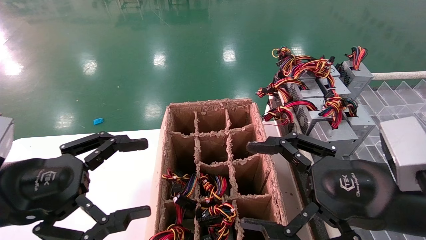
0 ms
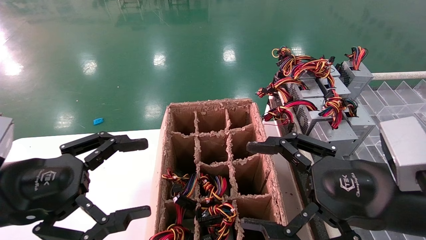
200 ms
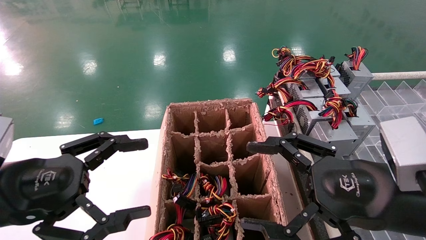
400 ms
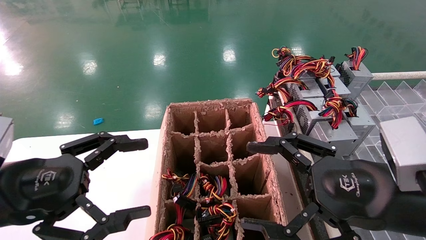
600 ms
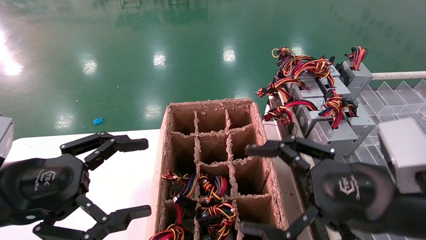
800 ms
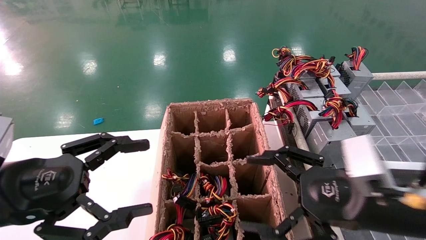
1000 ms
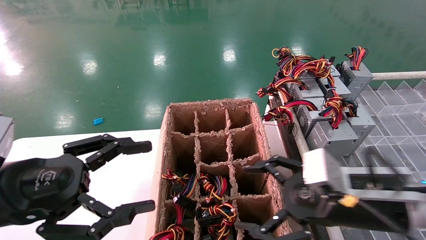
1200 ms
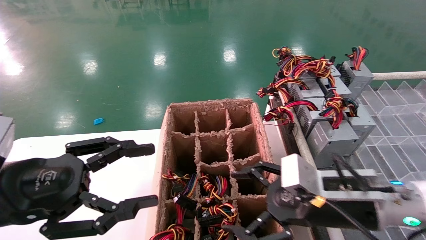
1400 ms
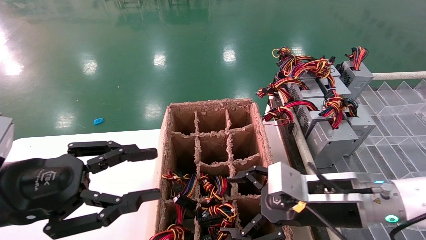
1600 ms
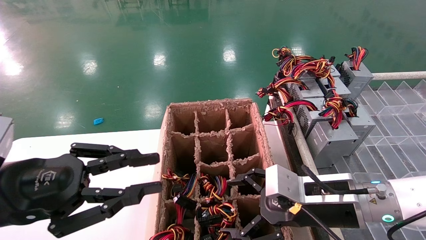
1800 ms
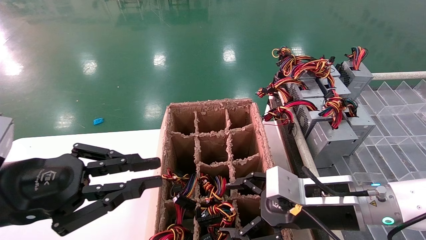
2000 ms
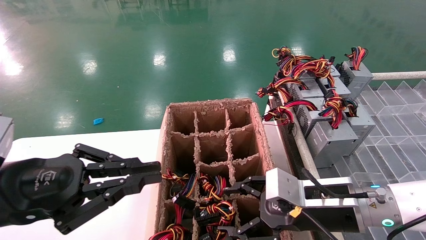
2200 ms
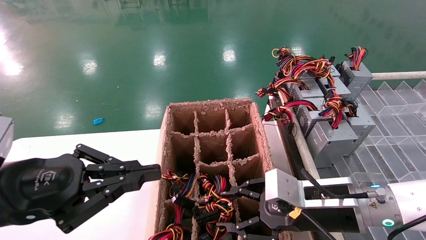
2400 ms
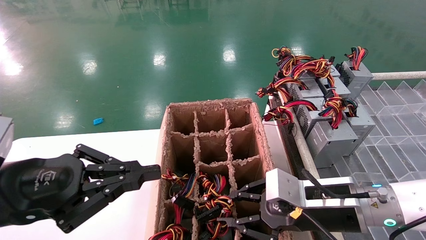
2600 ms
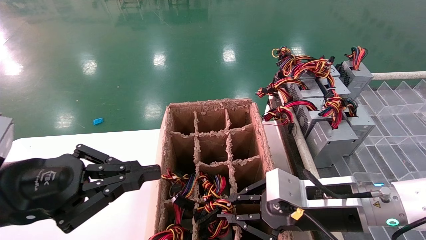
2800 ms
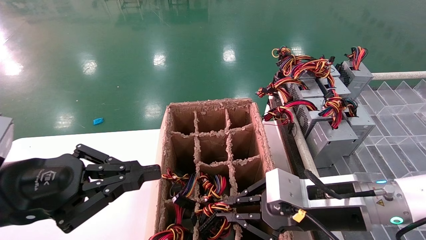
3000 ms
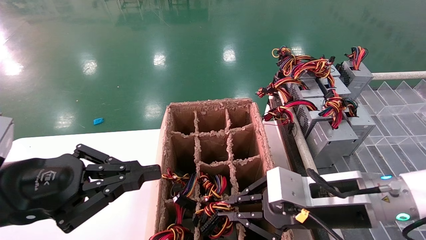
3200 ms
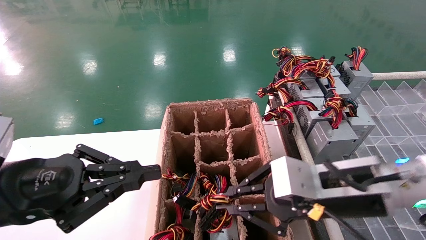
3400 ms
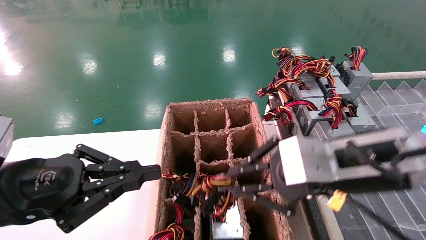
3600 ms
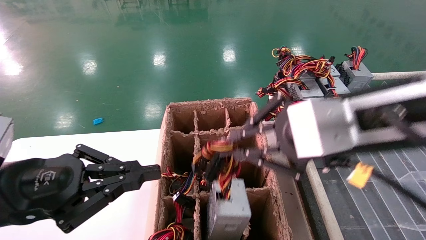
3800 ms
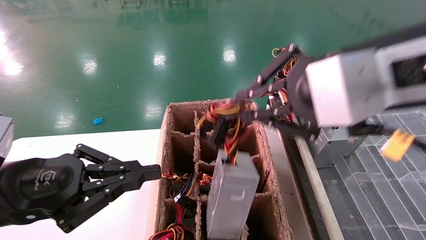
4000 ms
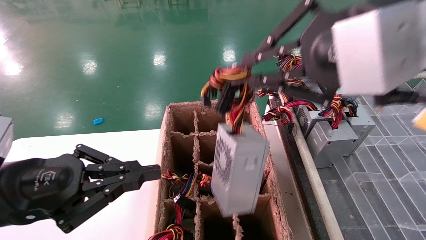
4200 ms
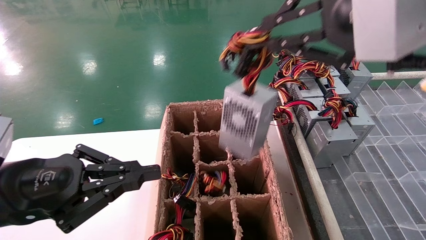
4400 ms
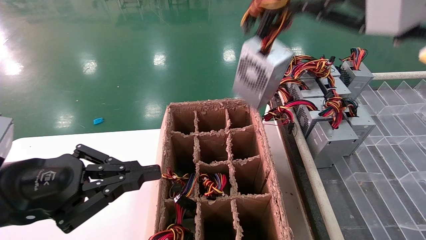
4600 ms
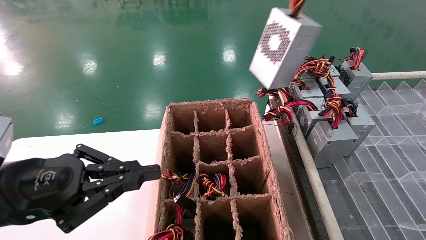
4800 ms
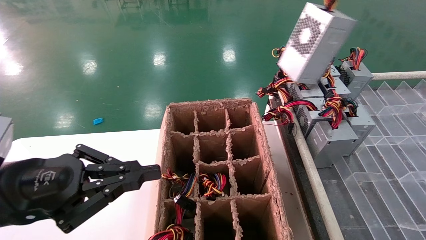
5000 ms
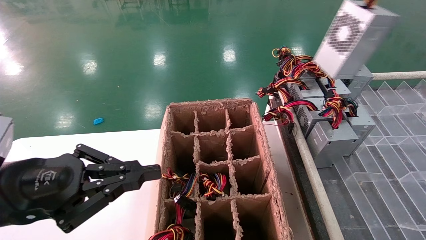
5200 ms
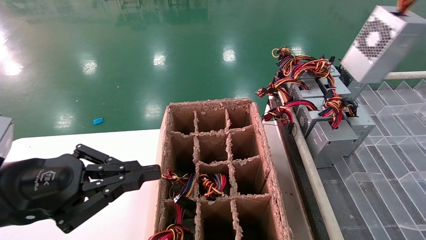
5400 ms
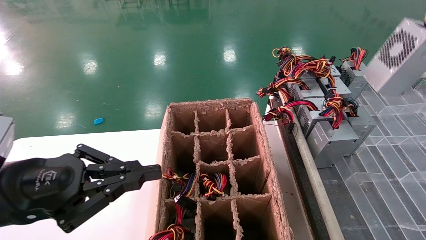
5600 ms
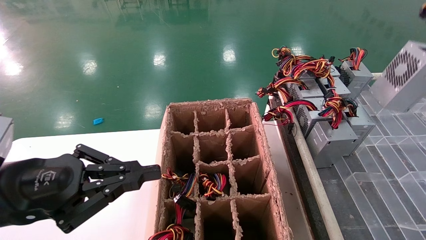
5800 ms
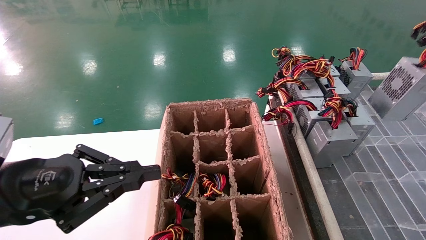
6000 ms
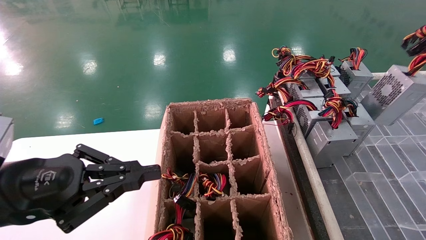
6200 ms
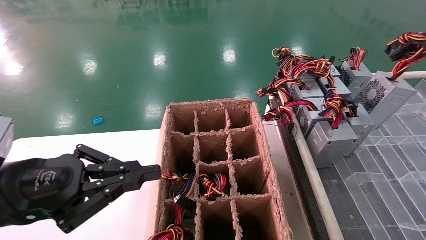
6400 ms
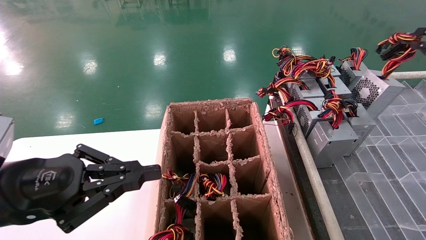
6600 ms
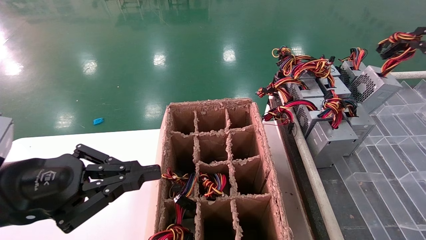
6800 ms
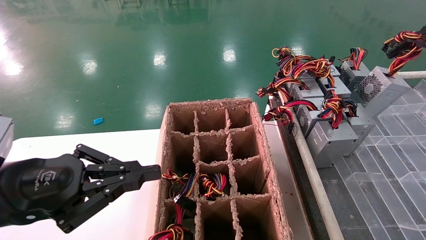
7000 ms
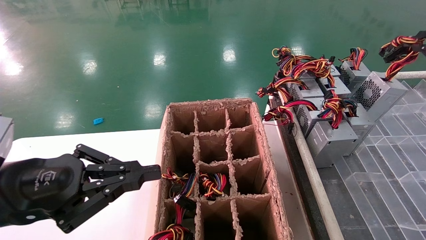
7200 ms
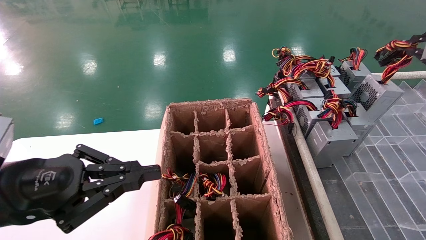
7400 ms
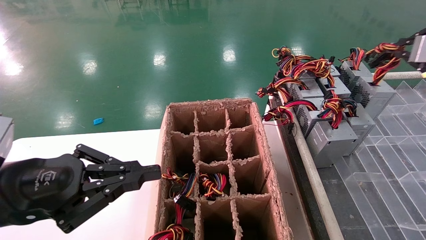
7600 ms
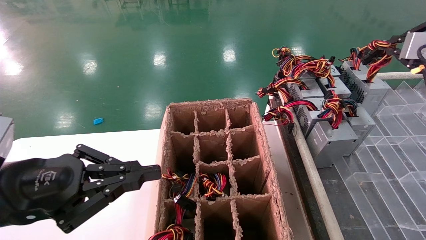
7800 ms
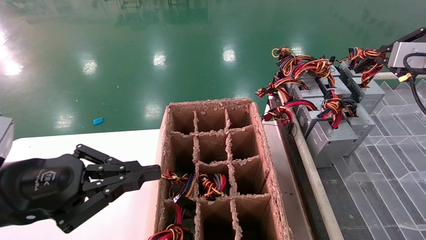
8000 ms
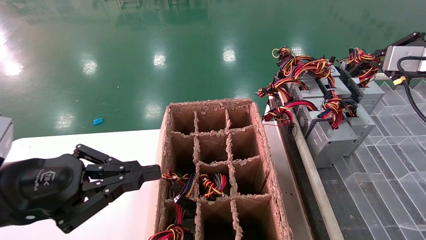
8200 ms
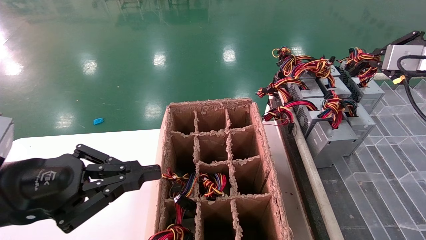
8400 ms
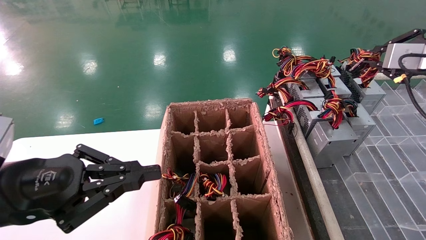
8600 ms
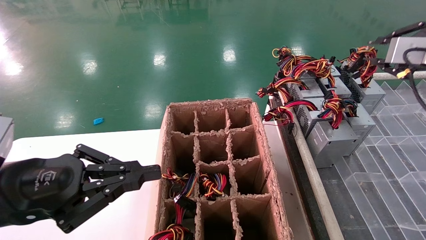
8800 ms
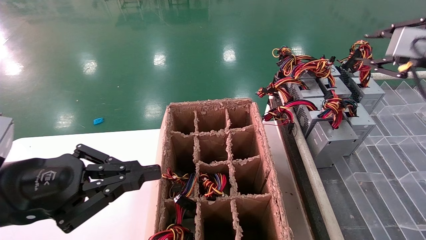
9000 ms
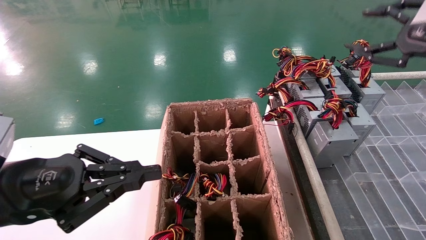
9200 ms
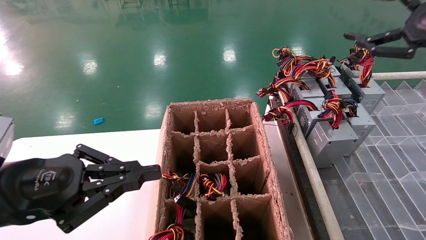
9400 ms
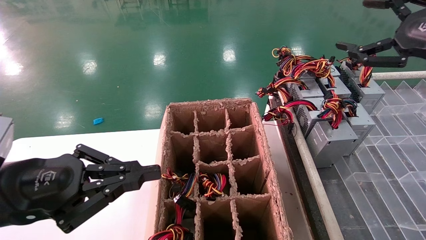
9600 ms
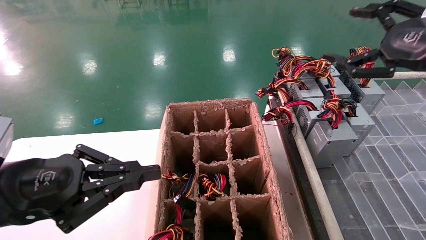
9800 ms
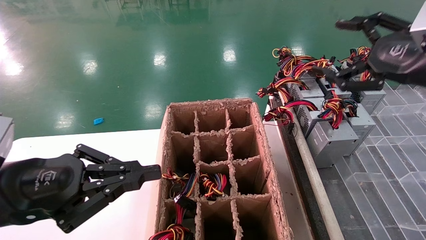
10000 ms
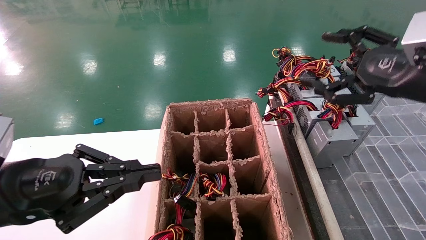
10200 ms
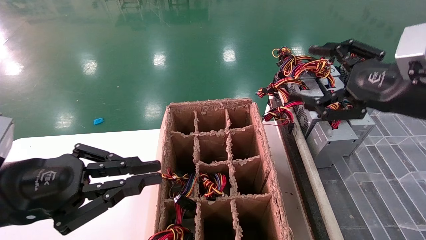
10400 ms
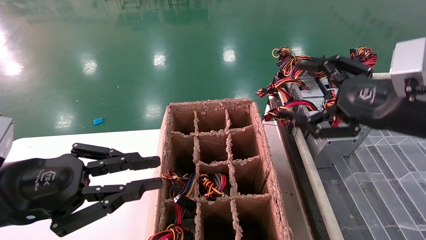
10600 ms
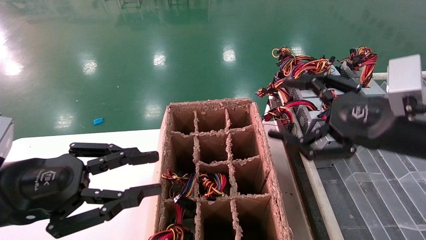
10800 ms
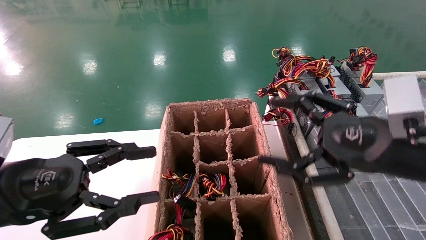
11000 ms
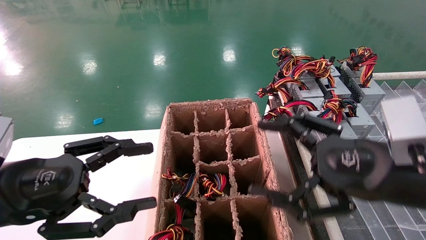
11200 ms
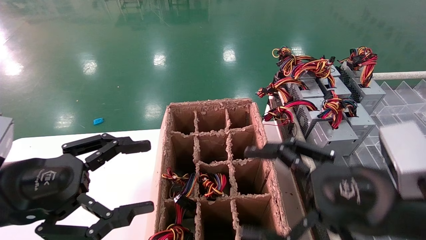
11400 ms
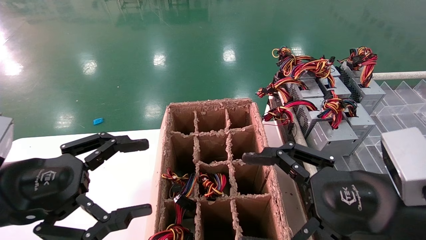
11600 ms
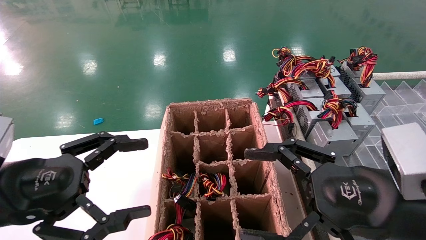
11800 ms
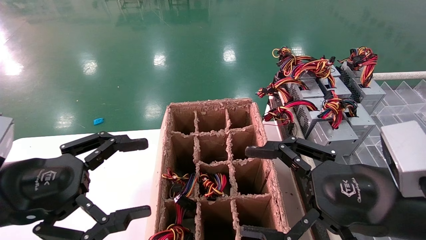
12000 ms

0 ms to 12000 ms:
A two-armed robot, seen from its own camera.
Step, 1400 ms to 3000 ms: Grab the main unit power supply from the containment box.
Step, 3200 ms to 9400 ms: Place the main unit power supply in the designated area.
0 ms to 1600 ms: The left gripper closes. Meanwhile the right gripper shifts roughly 10 cm forward and downward.
1600 ms to 3000 ms: The left gripper closes, while the right gripper closes up.
3000 ms to 4400 ms: The right gripper is displaced upward by roughly 30 cm.
4400 ms to 6000 ms: The right gripper heads to the right, covering roughly 25 cm.
6000 ms to 7600 ms: The right gripper goes some 10 cm forward.
7600 ms to 9000 ms: The grippers make only small movements.
9000 ms to 10400 ms: The right gripper travels to the left, downward and backward by approximately 15 cm, and opens up.
10400 ms to 12000 ms: The right gripper goes approximately 15 cm downward, to the left and backward. The left gripper opens its fingers.

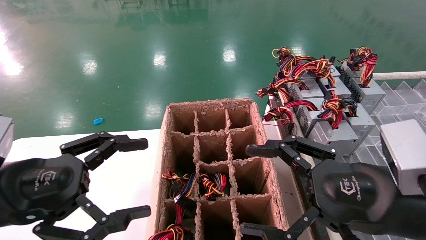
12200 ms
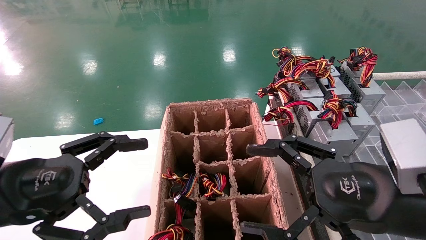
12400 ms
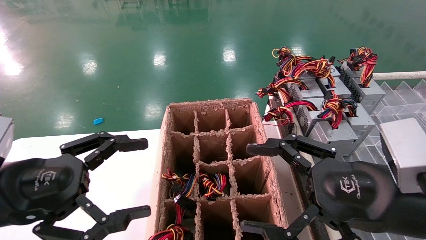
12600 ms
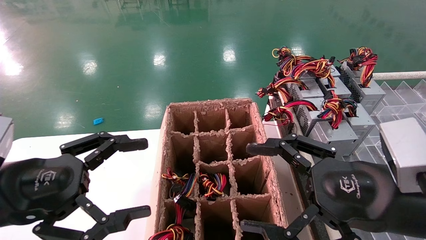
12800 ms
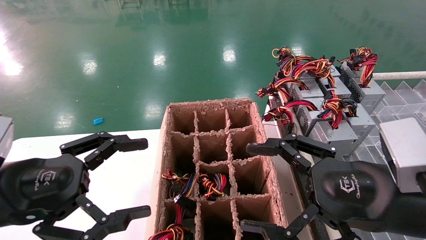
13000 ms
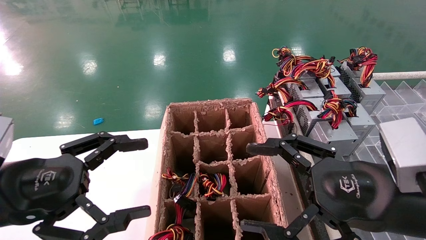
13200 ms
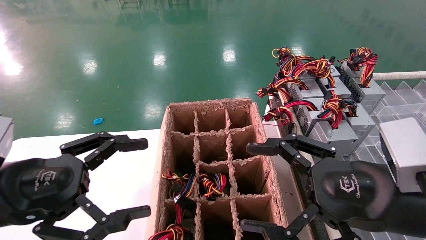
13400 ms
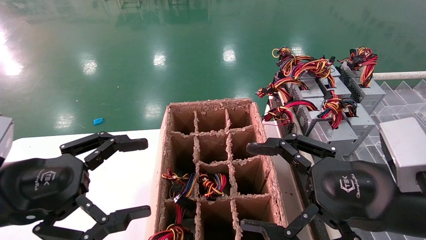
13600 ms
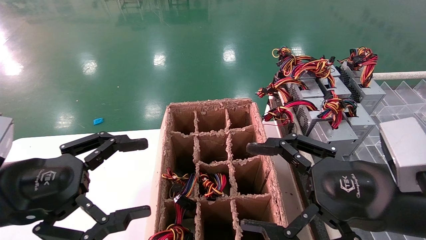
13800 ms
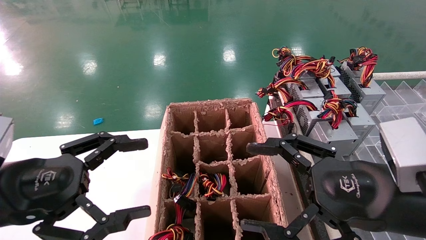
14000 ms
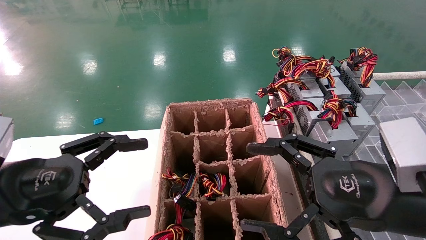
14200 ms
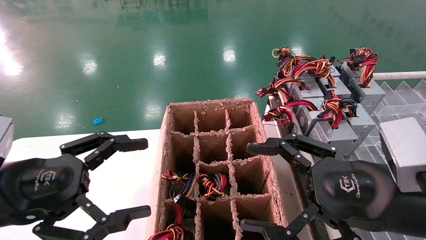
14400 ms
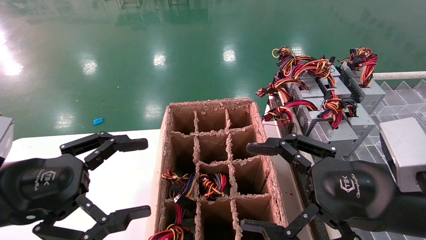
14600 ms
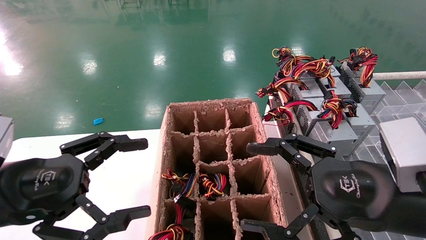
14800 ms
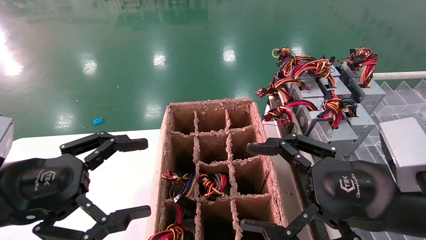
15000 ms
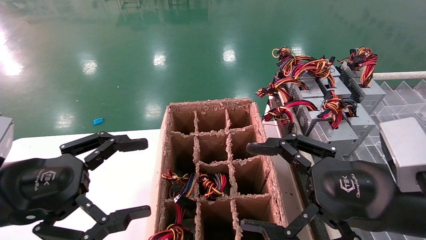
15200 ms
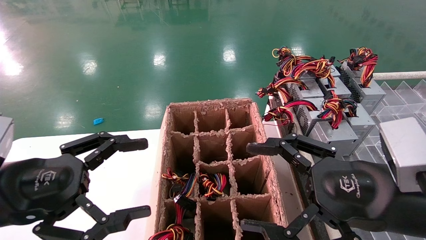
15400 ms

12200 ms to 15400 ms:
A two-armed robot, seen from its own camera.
12200 ms to 15400 ms: Both grippers stay about where they are.
